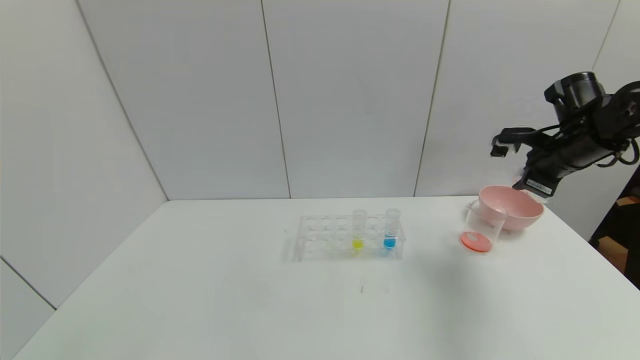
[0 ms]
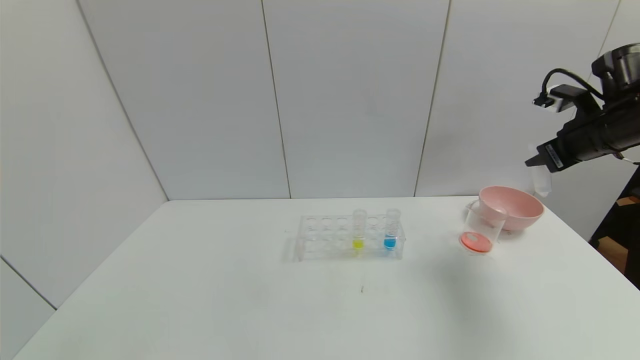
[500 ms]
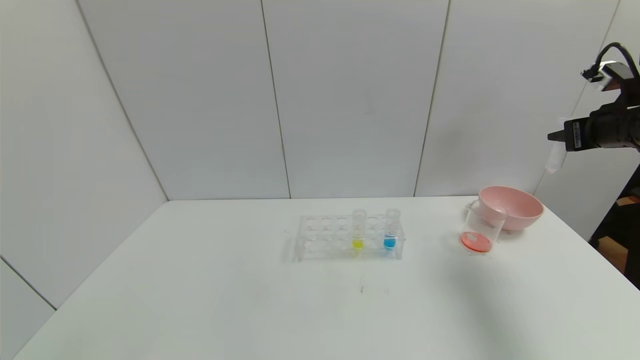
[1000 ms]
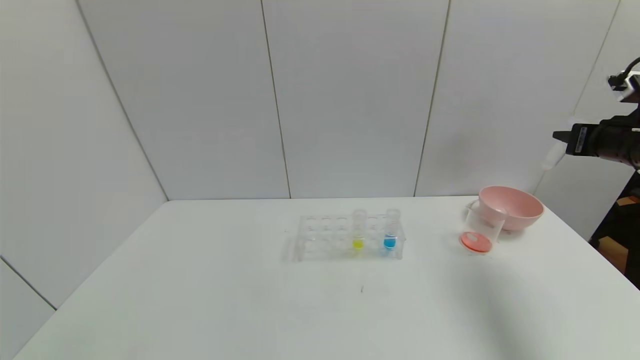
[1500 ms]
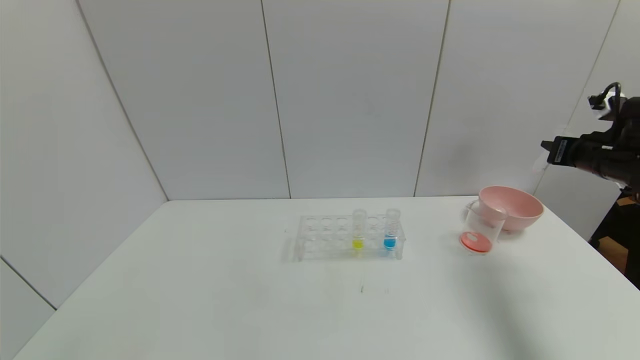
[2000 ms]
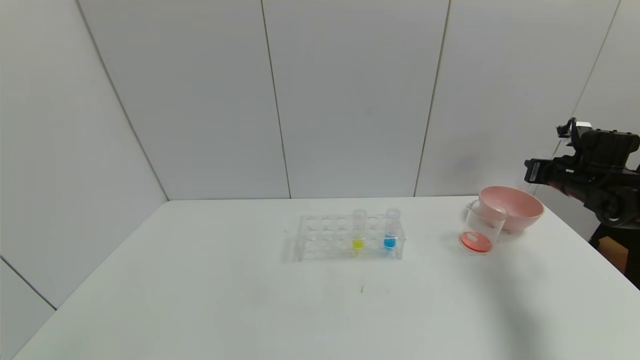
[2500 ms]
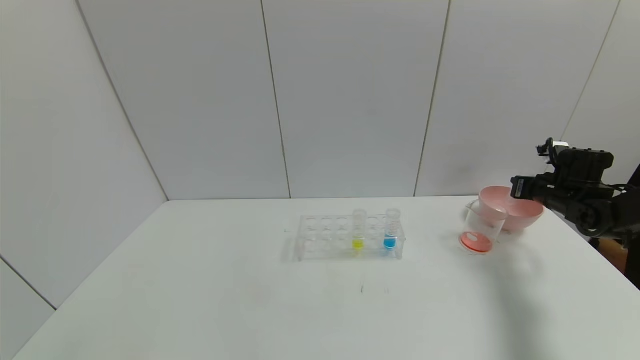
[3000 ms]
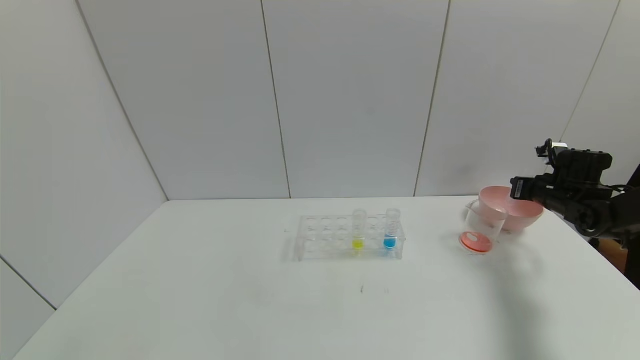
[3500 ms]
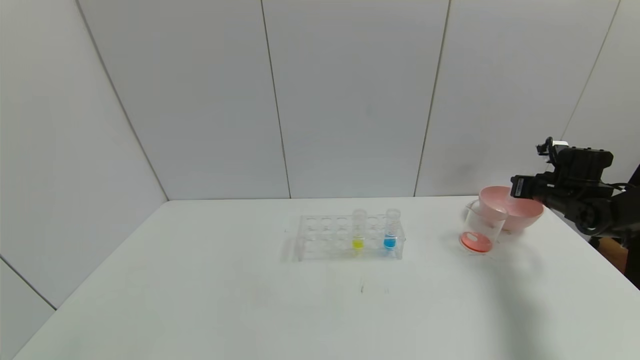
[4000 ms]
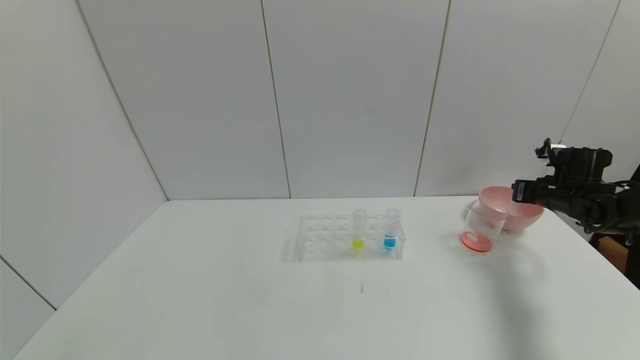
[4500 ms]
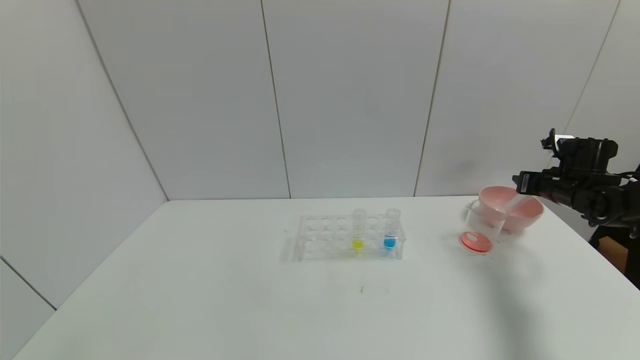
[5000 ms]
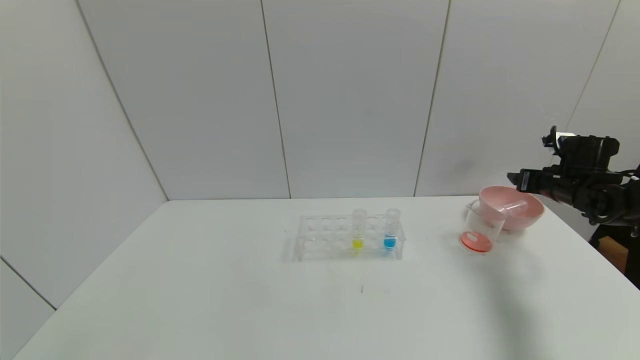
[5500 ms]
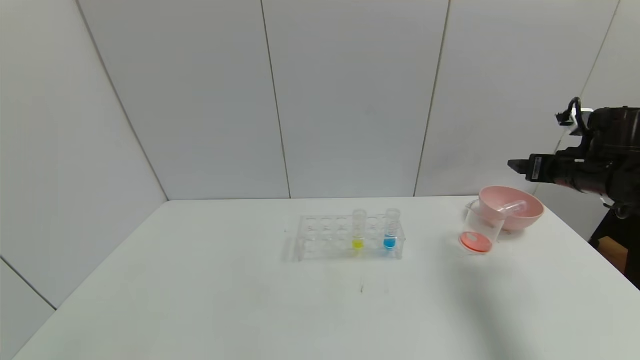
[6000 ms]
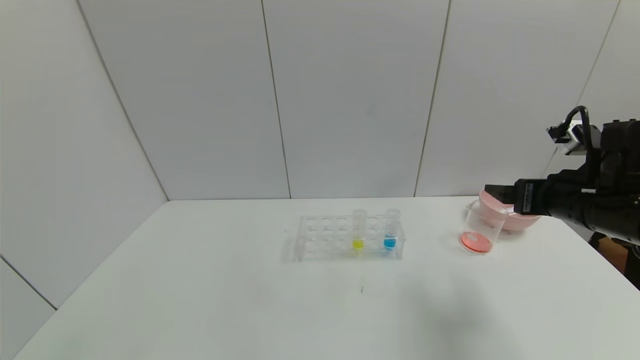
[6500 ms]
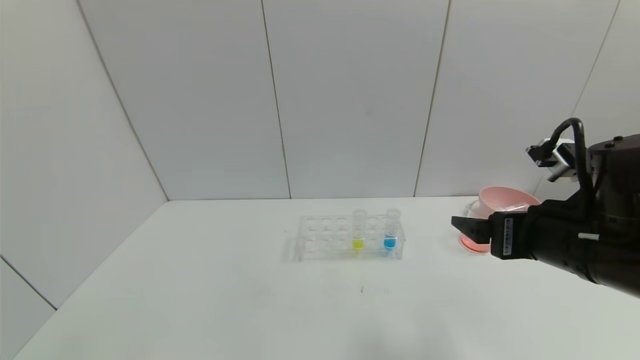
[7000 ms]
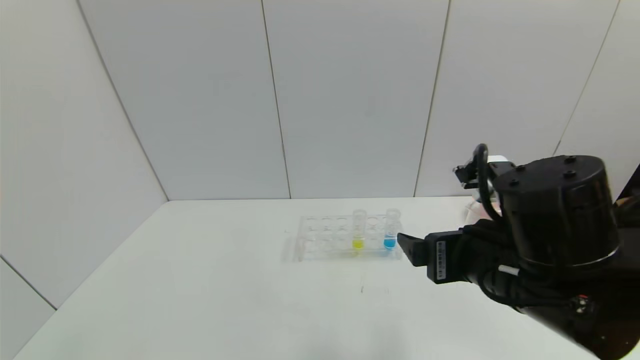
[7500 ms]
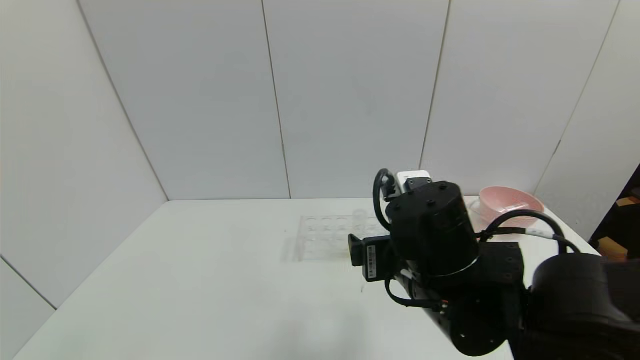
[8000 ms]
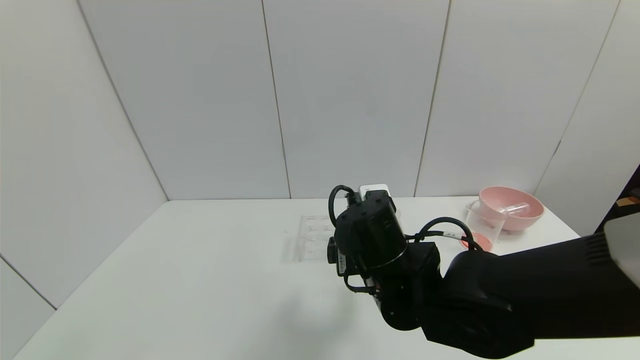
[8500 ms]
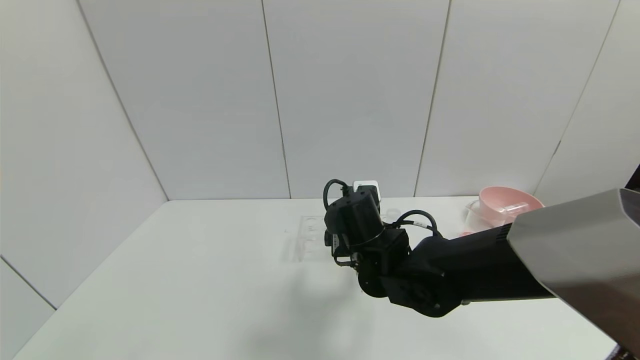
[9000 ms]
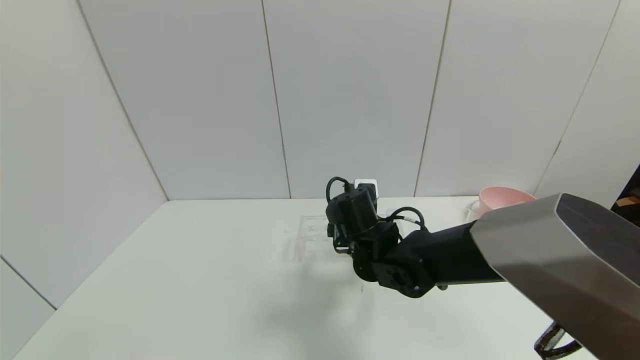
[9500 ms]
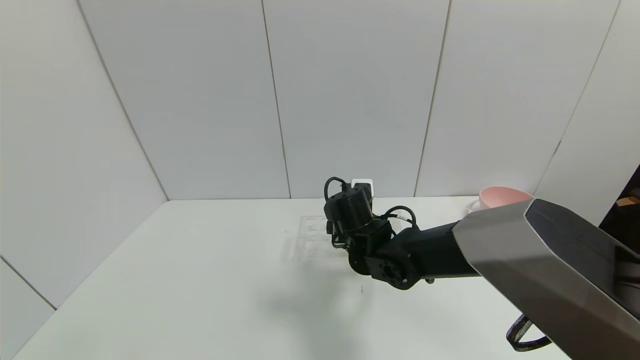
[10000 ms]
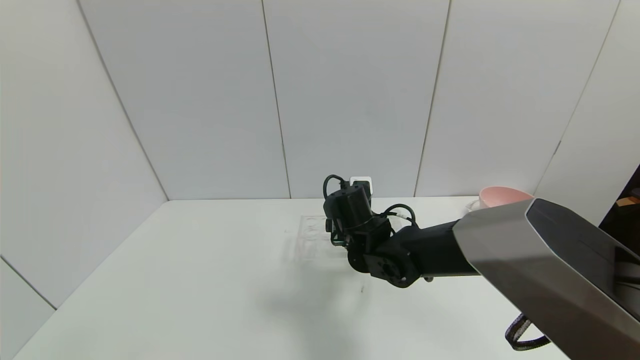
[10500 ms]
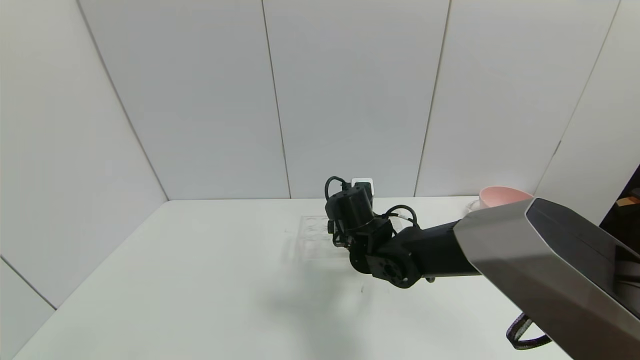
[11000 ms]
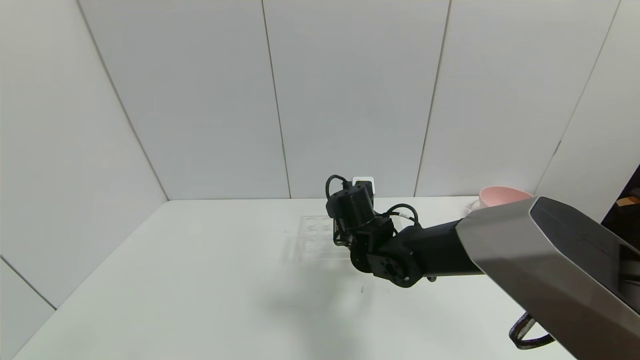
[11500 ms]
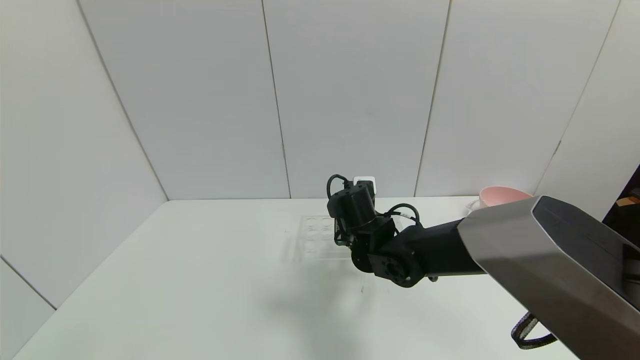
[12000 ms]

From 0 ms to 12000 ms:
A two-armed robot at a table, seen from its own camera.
Task of the whole recording: pick up the test tube with yellow pigment and the test tube with red pigment by grippers and pour them into the beaker.
Step, from 0 ms to 5000 ms: Place the test tube into the bowl with the right gripper.
Step, from 5500 ms to 11500 ms: Grasp the yellow reagent with the right gripper.
From 0 ms to 2000 ms: The right gripper travels to the right by some 10 cm.
From 2000 ms to 4000 ms: The right gripper goes roughly 10 cm downward and forward.
From 4000 ms to 6000 ms: The right gripper is displaced upward and backward by some 10 cm, and opens its fingers.
From 6000 ms to 8000 ms: The right gripper goes some 35 cm to the left and backward.
From 8000 ms to 10000 ms: The right gripper moves forward and downward, about 20 cm.
From 10000 ms to 12000 ms: The right gripper closes up.

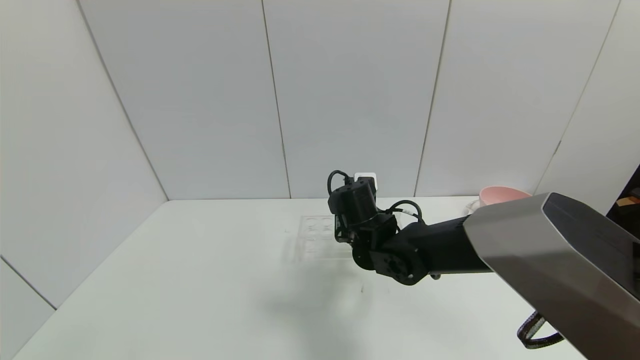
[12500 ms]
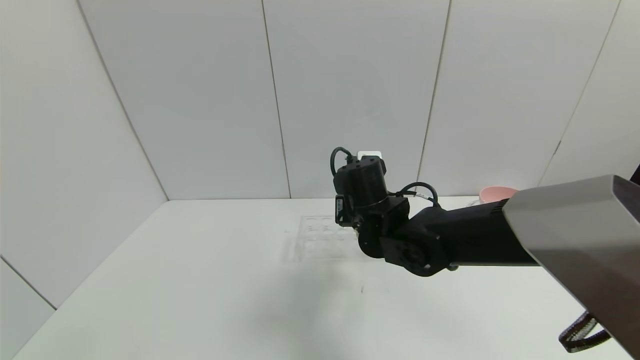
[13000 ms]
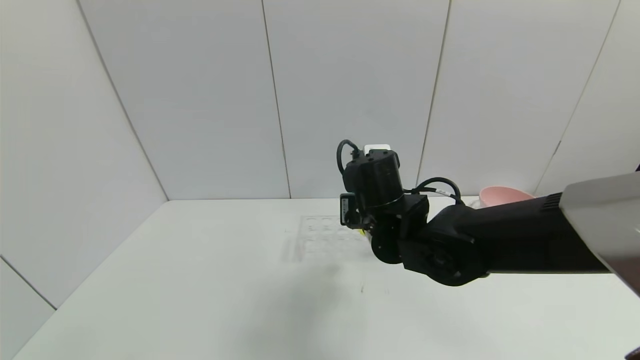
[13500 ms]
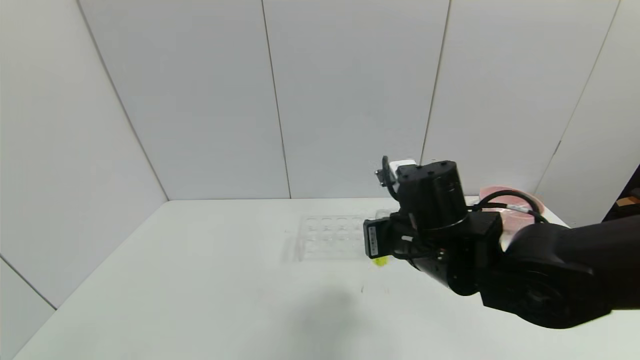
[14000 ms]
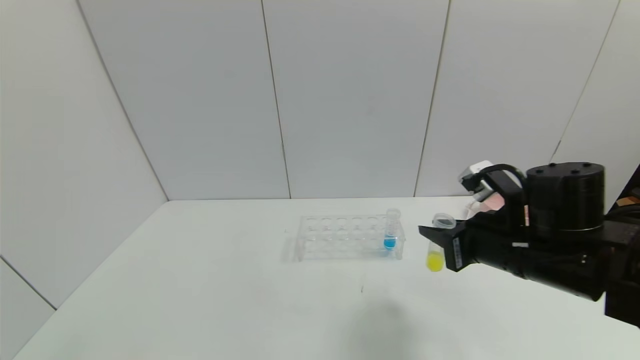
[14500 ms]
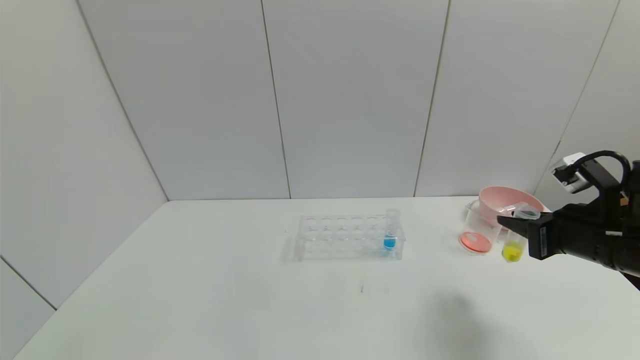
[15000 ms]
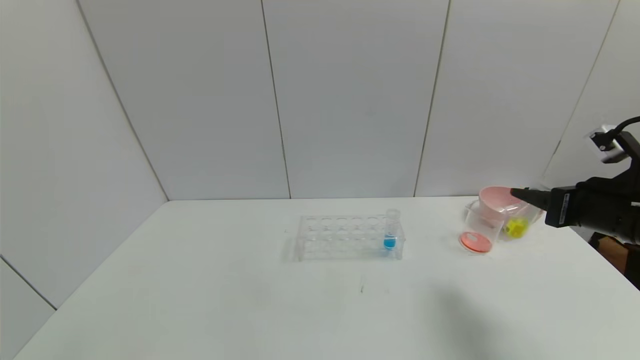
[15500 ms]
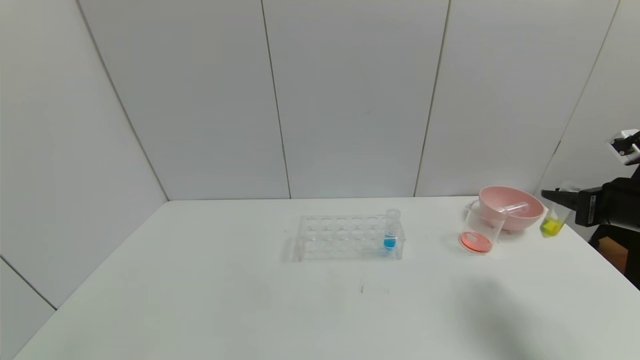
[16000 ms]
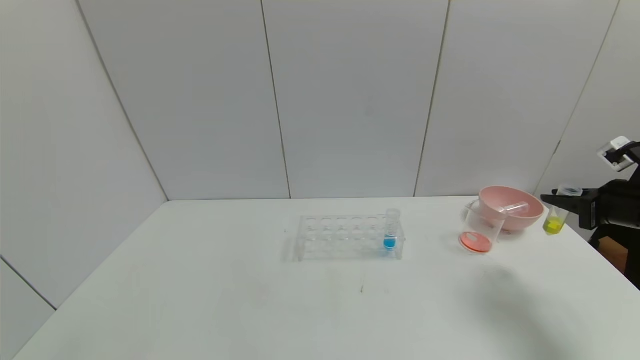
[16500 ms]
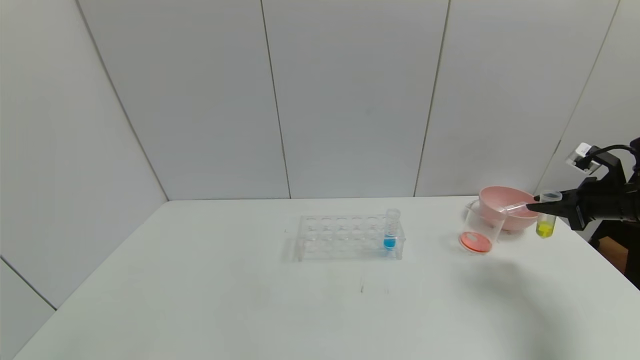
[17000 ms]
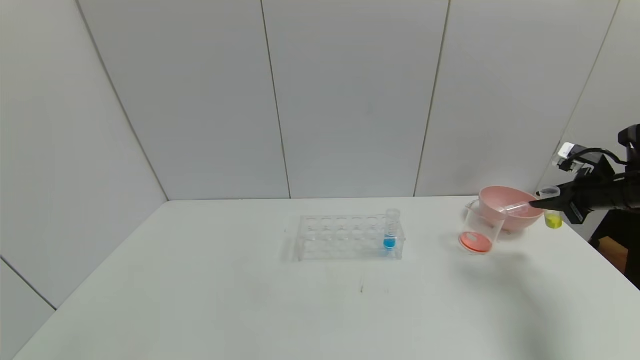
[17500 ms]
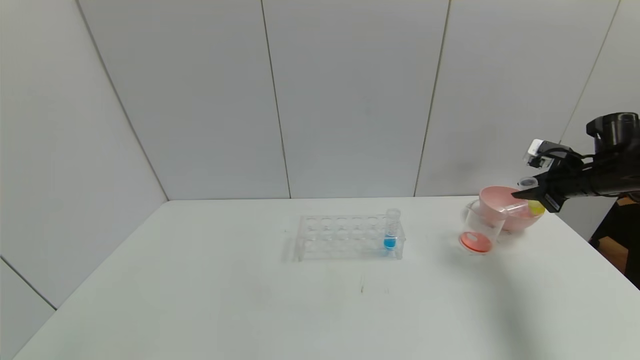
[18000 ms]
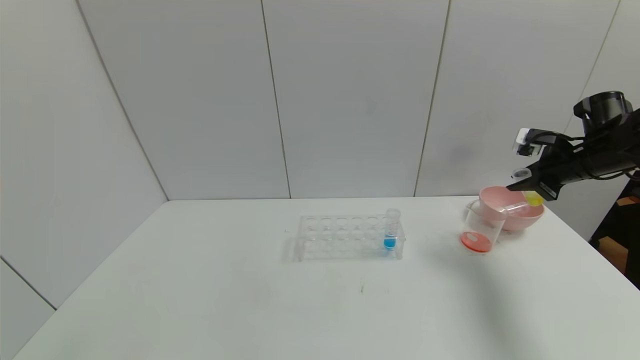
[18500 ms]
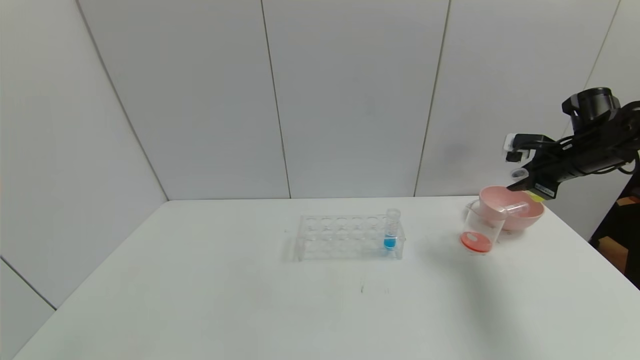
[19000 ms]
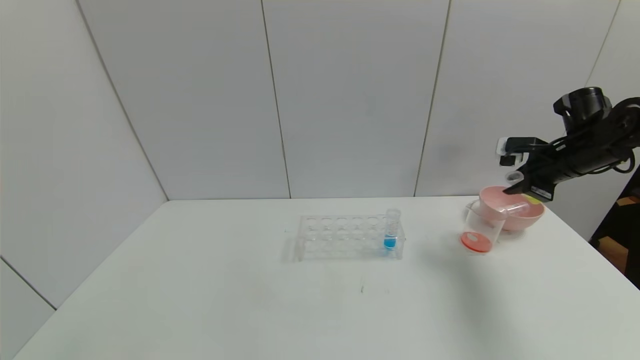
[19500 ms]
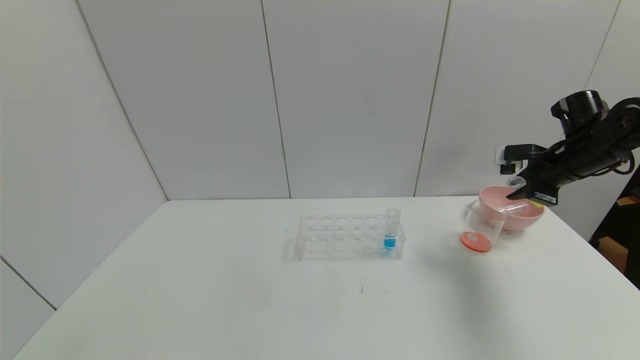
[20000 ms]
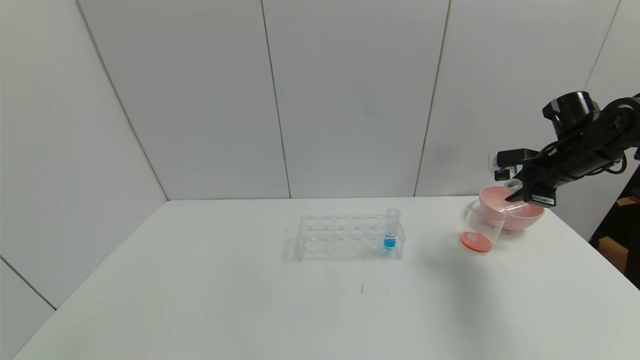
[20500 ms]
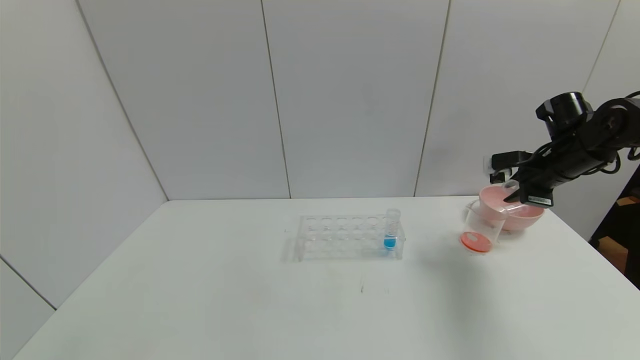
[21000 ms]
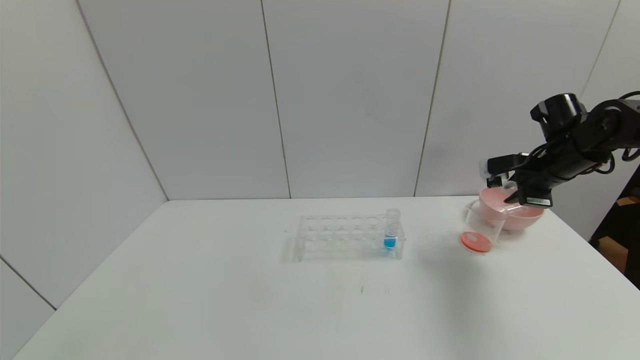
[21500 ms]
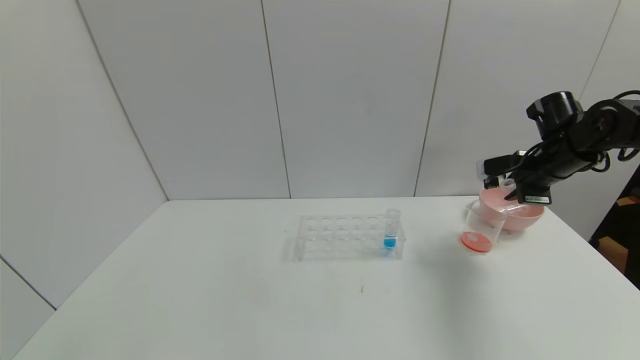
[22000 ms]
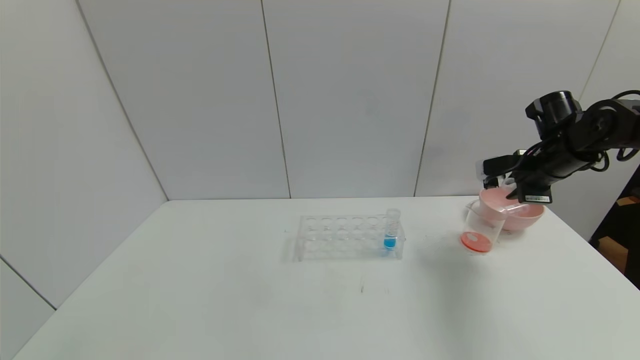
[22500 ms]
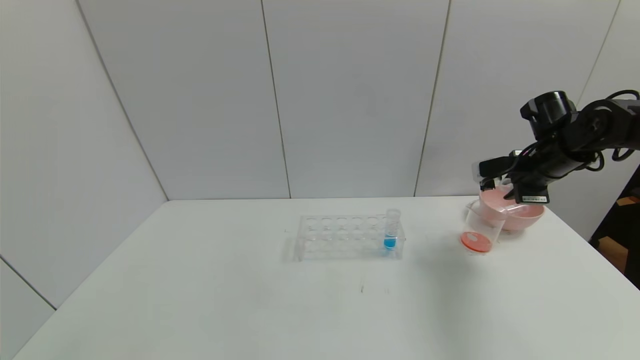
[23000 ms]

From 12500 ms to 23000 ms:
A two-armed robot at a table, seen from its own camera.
Task of the whole recording: pick up the test tube with yellow pigment and the test tube with red pigment by grippers and pour them into the beaker.
From 12500 ms to 14500 ms: The right gripper shifts roughly 20 cm to the right, backward and upward.
From 14500 ms to 16500 ms: The right gripper heads to the right, covering roughly 25 cm.
From 16500 ms to 19000 ms: The right gripper goes about 10 cm forward.
From 19000 ms to 21000 ms: The grippers make only small movements.
From 21000 ms to 23000 ms: The grippers move only a little.
